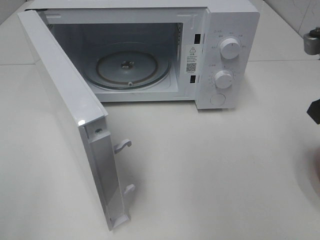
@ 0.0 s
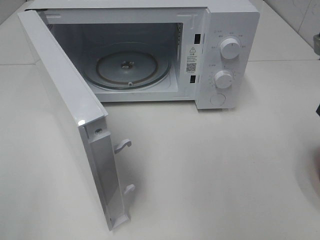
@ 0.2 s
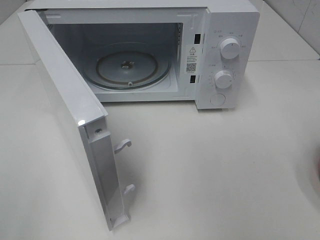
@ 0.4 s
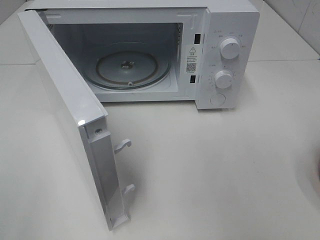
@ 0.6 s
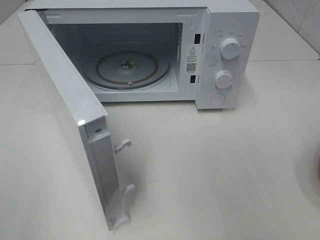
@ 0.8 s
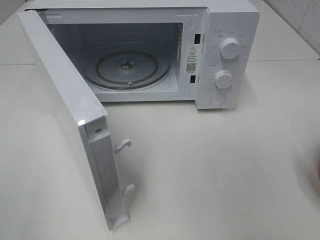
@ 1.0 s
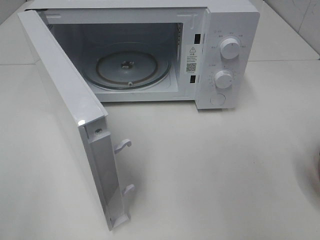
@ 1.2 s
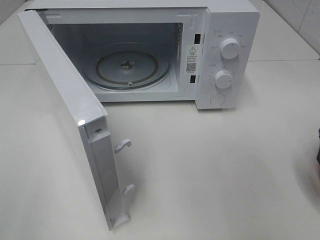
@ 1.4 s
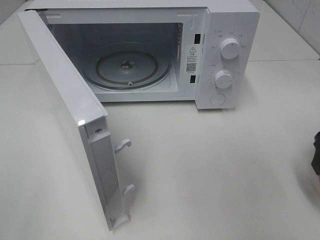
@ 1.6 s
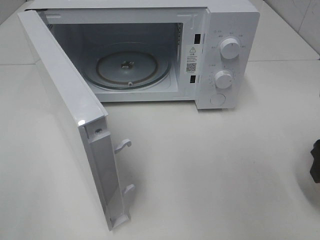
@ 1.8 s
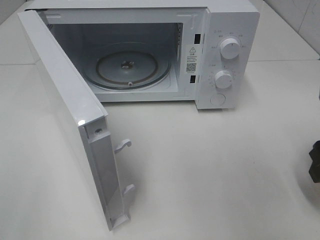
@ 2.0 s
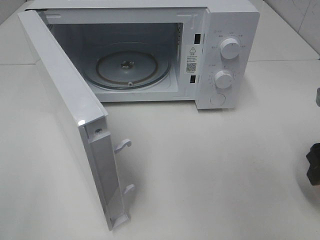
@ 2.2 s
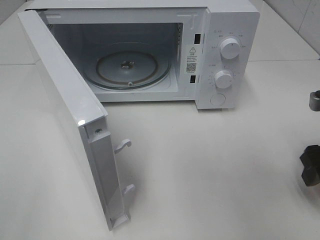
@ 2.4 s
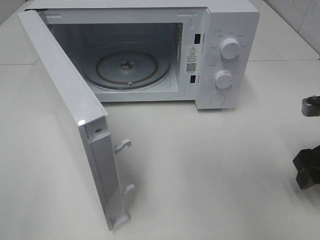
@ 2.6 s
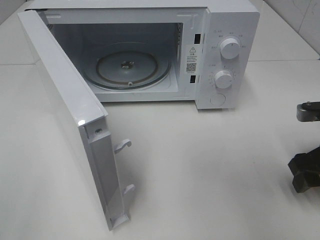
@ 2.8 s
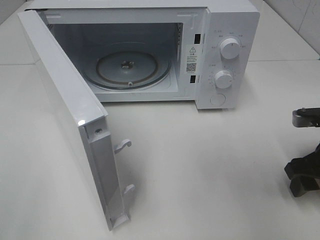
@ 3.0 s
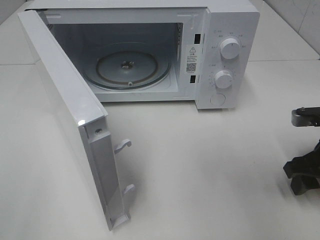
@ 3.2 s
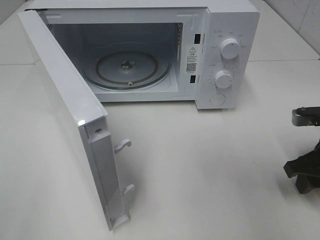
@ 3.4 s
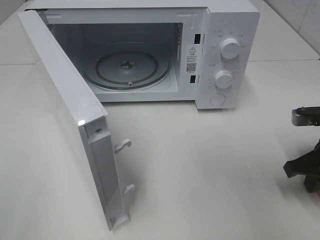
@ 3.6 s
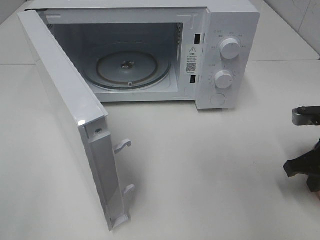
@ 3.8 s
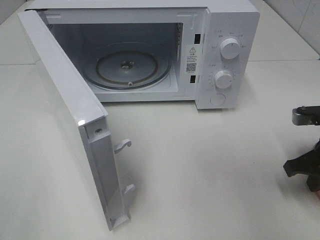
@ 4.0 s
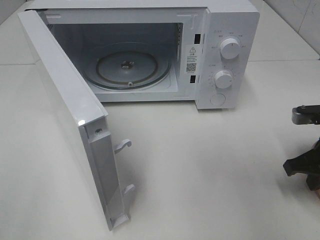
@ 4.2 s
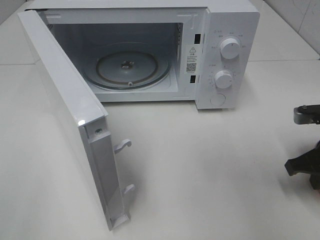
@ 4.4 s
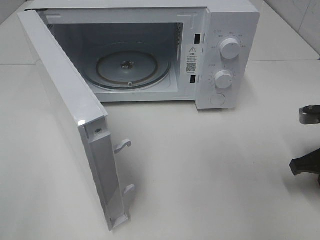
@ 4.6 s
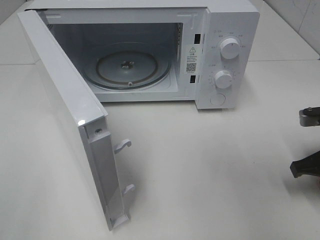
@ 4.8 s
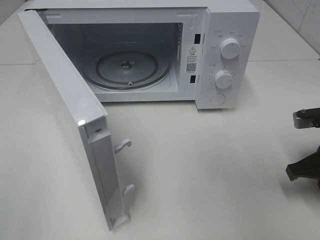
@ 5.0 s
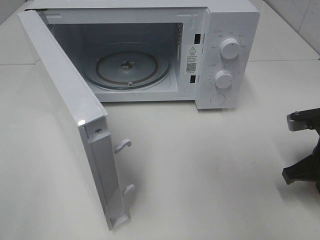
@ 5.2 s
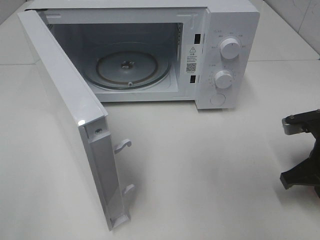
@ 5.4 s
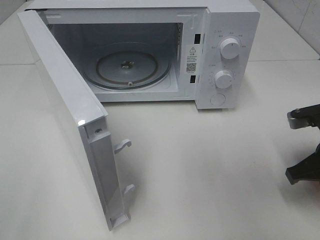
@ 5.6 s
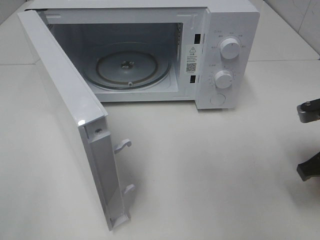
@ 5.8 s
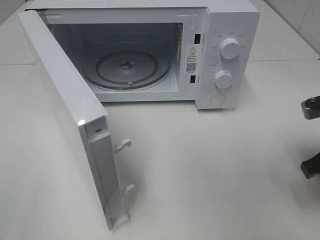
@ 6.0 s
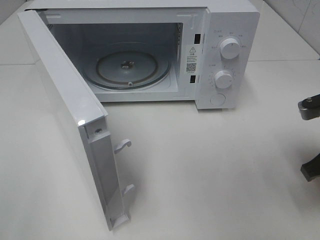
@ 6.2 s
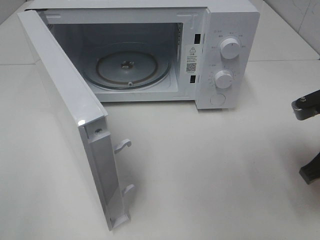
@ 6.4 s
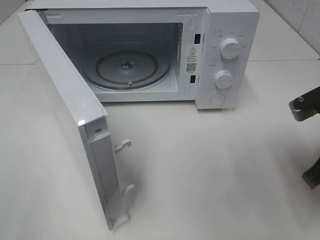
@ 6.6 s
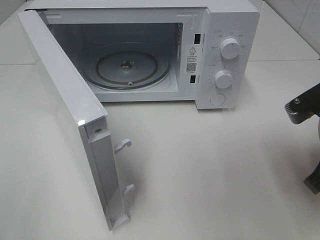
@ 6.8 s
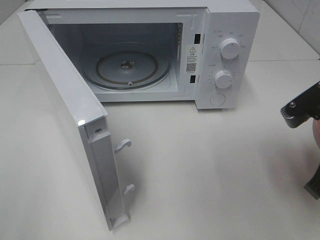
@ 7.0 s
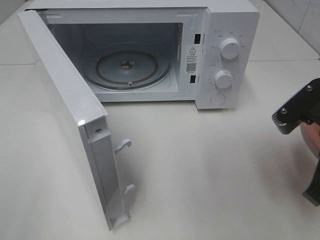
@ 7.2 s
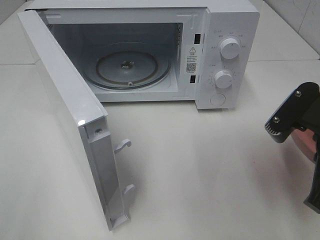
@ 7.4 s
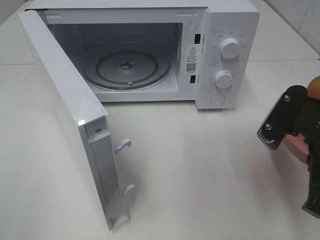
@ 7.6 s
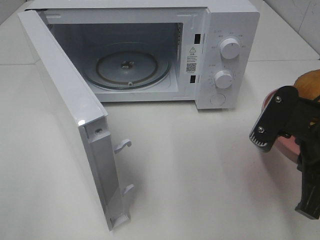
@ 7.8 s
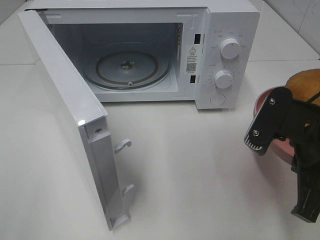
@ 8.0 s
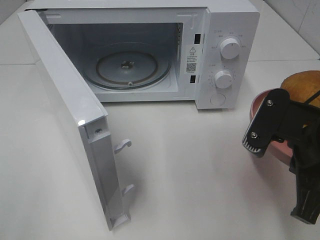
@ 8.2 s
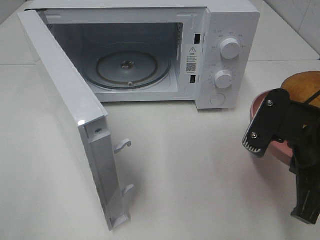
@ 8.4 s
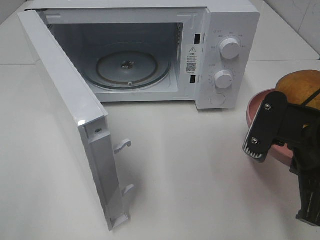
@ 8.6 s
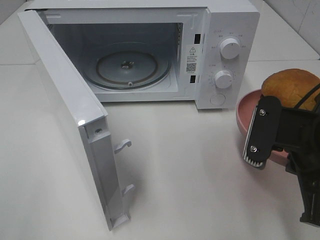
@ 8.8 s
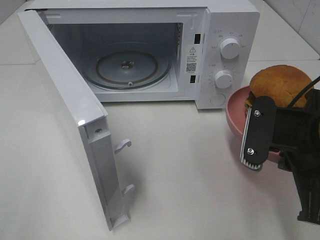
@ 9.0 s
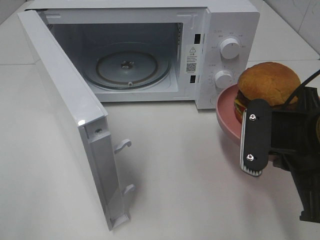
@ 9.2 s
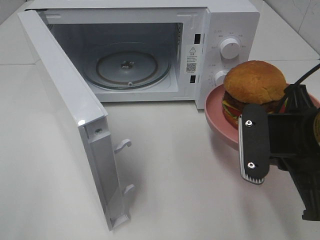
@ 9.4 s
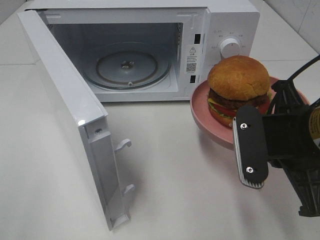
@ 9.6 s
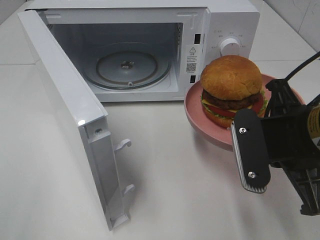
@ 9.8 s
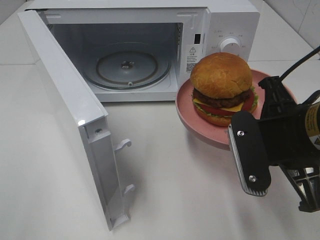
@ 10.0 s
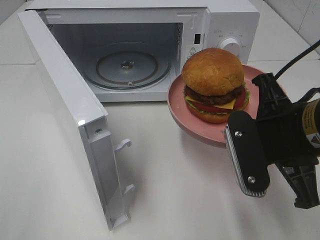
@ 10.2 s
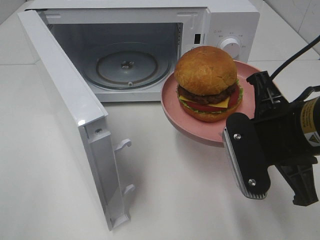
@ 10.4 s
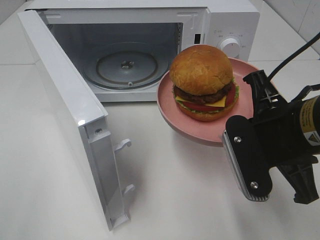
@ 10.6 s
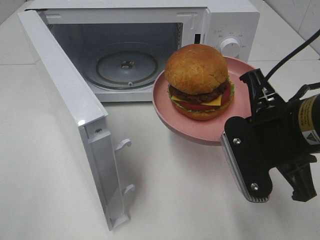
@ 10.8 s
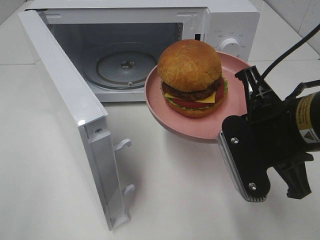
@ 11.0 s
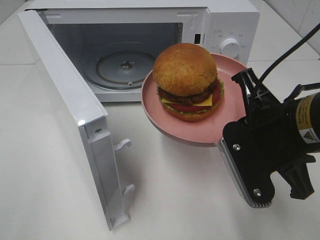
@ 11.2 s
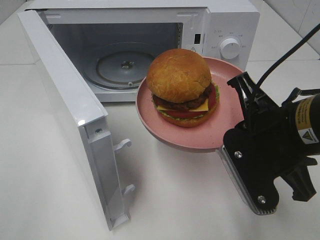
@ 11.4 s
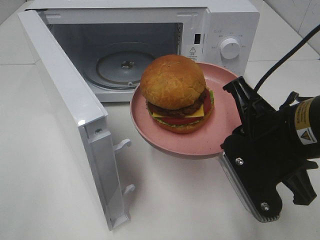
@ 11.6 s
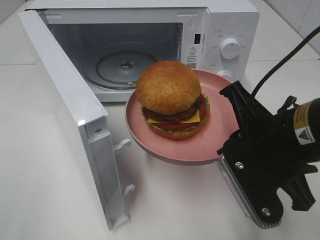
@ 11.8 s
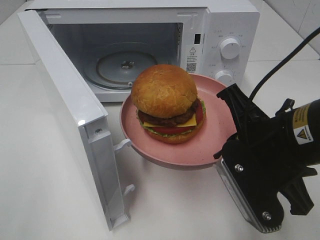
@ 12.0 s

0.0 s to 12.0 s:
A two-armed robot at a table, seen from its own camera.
Task of the whole recording: Heat the burger.
Step, 0.0 to 3.6 s: Right hand: grab the plate with the hamburger.
0.0 to 1.6 s: The right gripper moves downward, some 5 cm, and opens up.
1.6 to 3.0 s: The right gripper goes some 10 cm downward.
3.0 to 4.4 s: The right gripper closes its fingers.
4.4 to 6.0 s: The right gripper changes place by about 5 cm.
6.0 to 7.6 s: The right gripper is displaced to the left by roughly 5 cm.

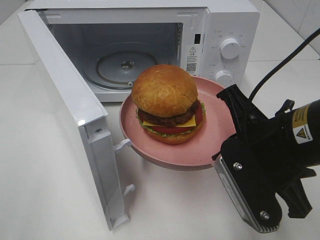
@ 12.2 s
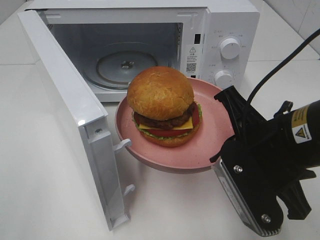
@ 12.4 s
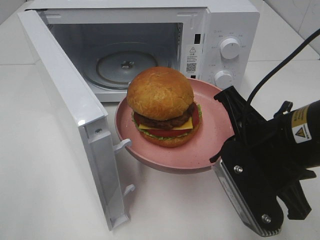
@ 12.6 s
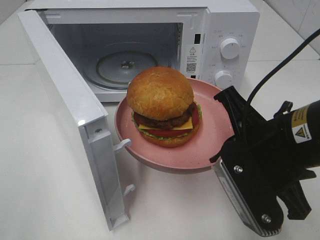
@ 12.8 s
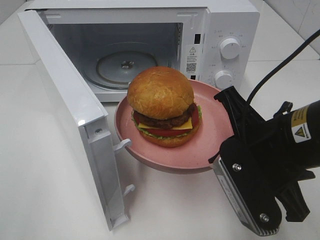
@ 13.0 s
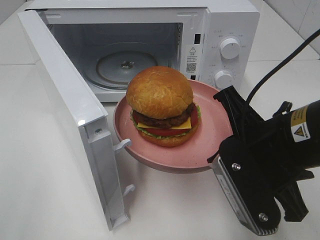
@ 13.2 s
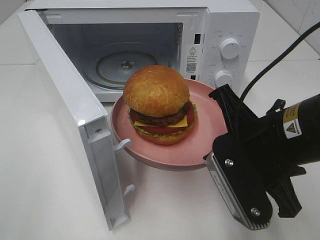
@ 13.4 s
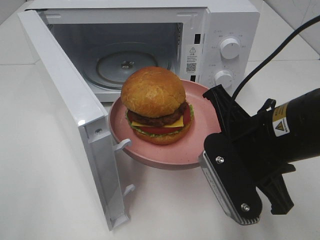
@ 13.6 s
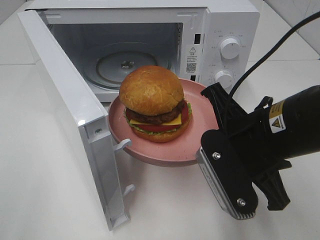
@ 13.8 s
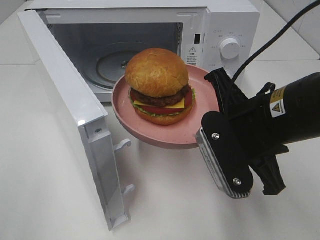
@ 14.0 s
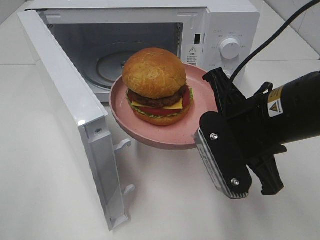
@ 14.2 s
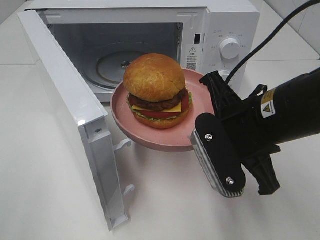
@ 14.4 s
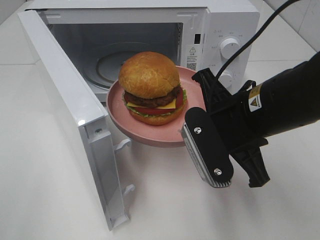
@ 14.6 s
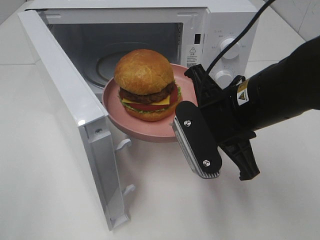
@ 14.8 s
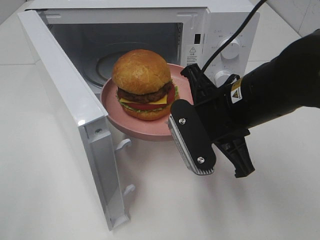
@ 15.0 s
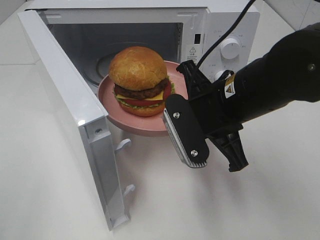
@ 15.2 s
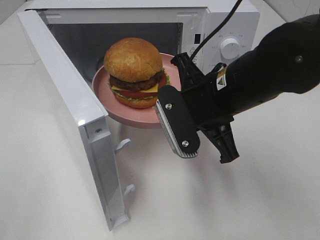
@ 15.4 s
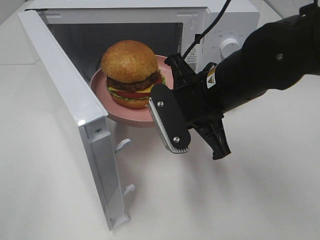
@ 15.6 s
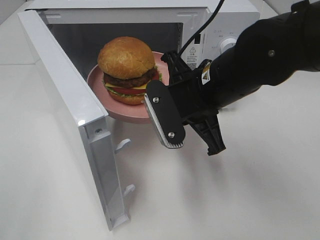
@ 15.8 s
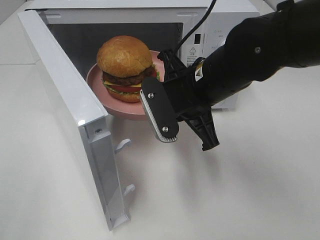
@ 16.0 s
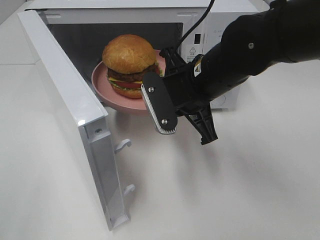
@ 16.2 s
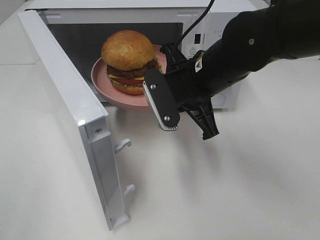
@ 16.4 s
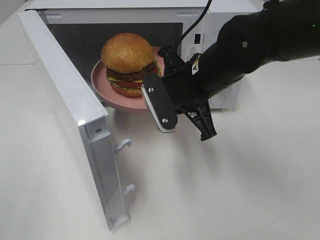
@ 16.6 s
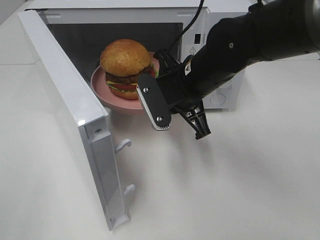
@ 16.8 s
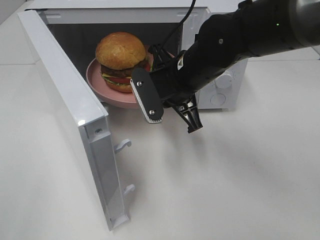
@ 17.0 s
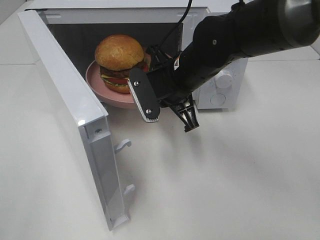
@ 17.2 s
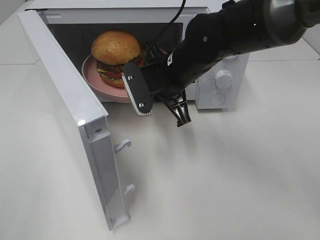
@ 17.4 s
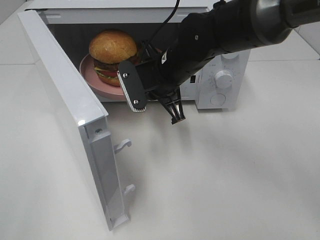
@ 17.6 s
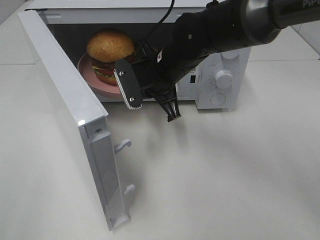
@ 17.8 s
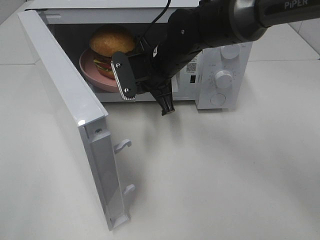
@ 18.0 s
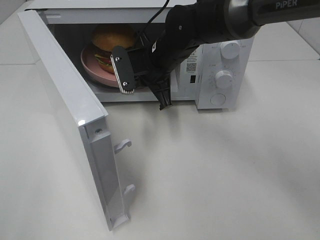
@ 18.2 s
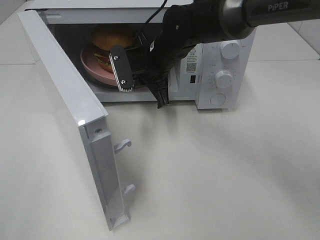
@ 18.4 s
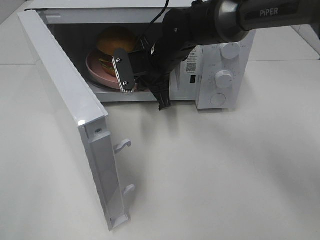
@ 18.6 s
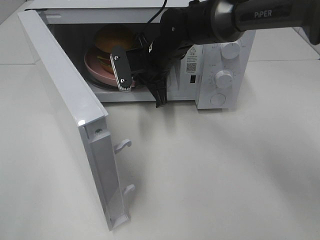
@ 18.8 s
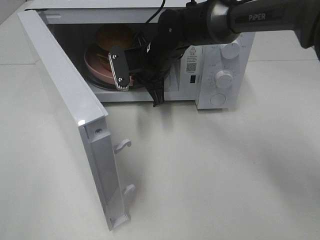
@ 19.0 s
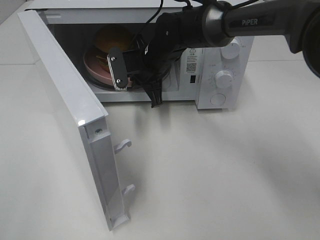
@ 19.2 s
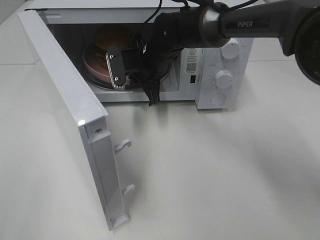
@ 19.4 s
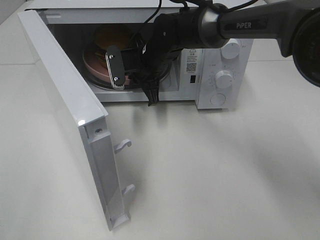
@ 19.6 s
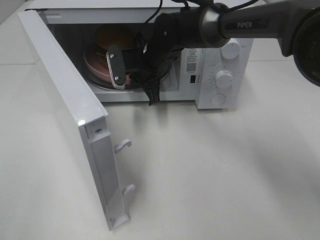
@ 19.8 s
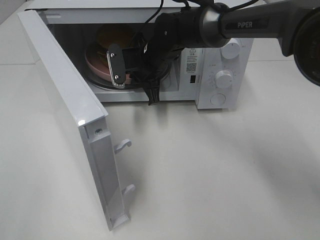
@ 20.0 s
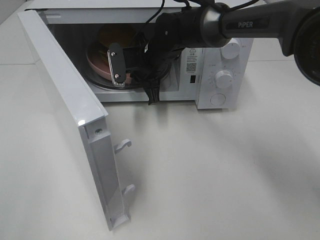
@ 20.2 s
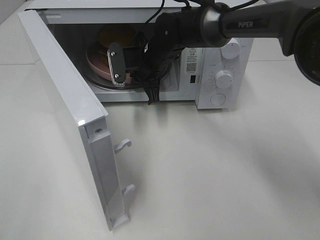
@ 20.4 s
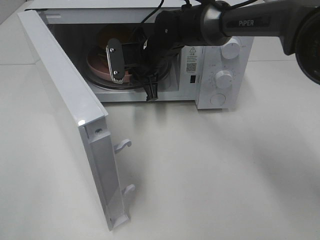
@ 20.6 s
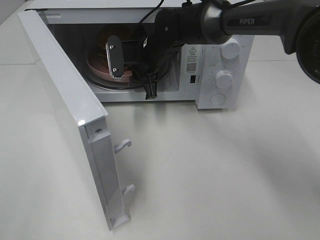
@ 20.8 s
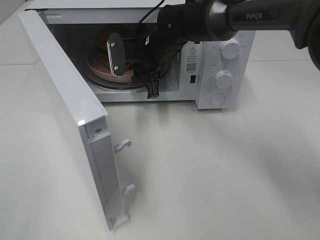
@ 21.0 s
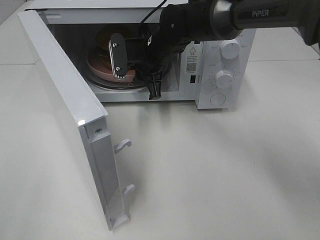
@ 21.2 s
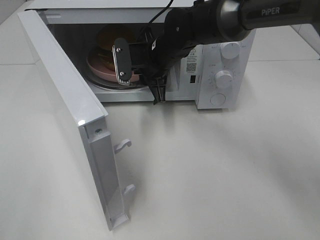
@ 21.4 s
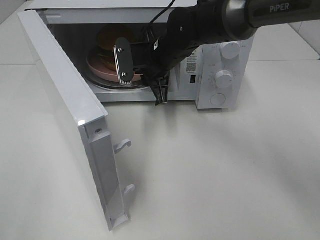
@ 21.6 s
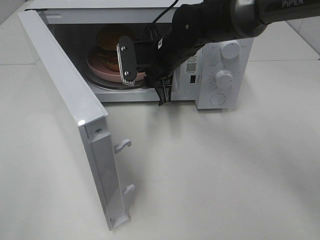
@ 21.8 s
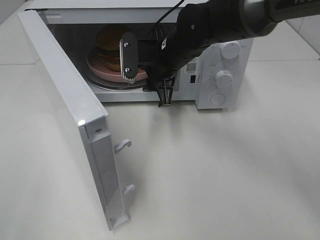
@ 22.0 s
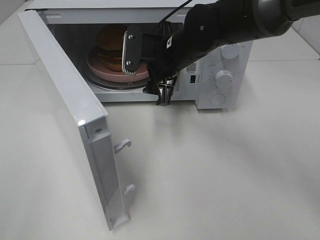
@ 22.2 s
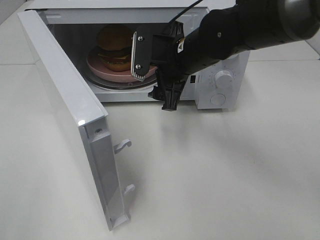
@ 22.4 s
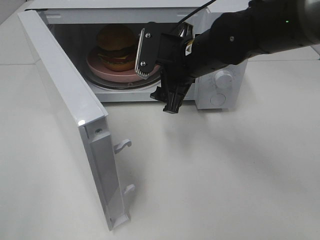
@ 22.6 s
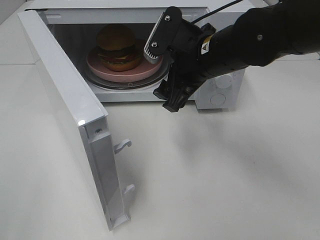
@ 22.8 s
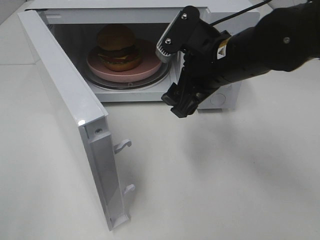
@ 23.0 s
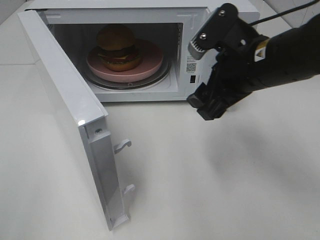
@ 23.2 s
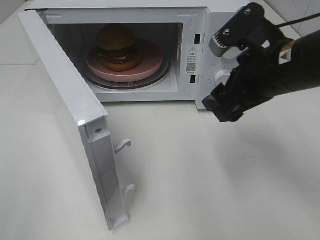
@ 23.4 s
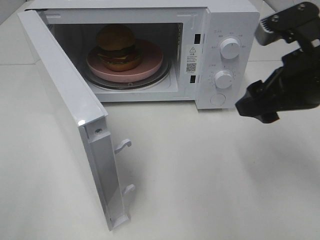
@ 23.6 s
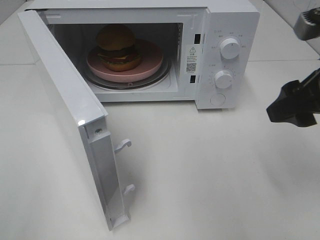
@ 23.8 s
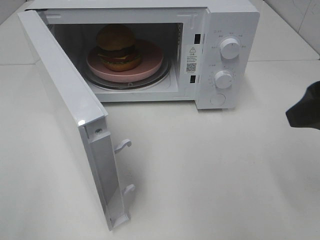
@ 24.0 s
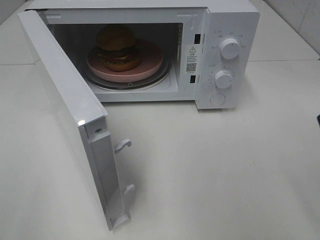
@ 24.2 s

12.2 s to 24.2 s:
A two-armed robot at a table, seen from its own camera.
Task of the whole recording: Heat the burger.
Step, 12.2 to 20.6 s: Right hand: place the plate in the microwave.
12.2 to 13.8 s: The grippers stay close to where they were, moving slightly.
13.8 to 15.2 s: The right gripper moves forward, some 5 cm.
15.2 to 16.6 s: The right gripper heads forward, covering roughly 5 cm.
16.6 to 18.2 s: The right gripper shifts some 10 cm forward and to the left.
18.2 to 19.8 s: The right gripper changes place by about 5 cm.
19.8 to 21.2 s: There are only small adjustments of the grippers.
21.2 to 22.6 s: The right gripper moves backward and to the right, approximately 10 cm, and opens its fingers.
22.6 to 24.2 s: The right gripper heads backward, to the right and upward, covering approximately 30 cm.
